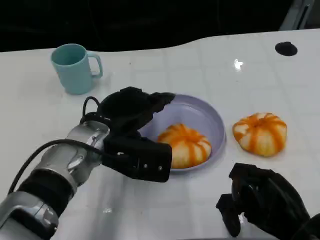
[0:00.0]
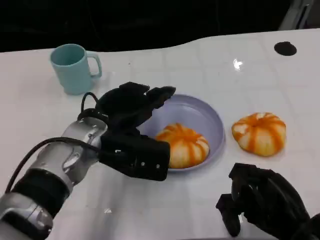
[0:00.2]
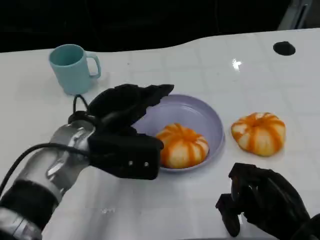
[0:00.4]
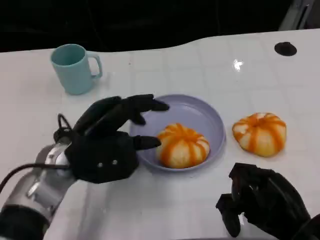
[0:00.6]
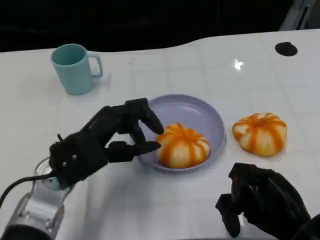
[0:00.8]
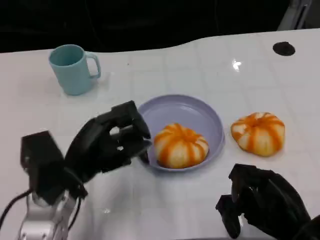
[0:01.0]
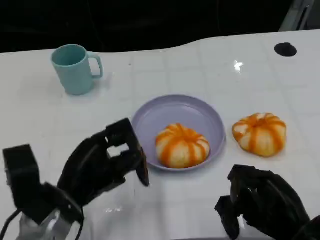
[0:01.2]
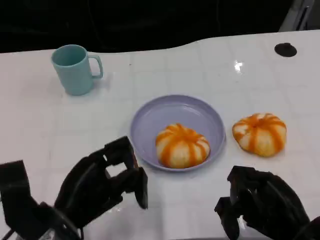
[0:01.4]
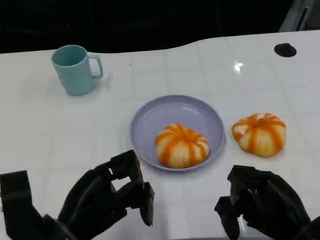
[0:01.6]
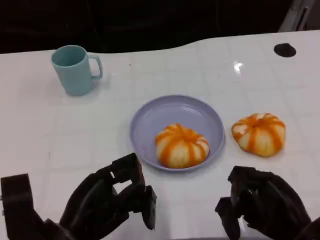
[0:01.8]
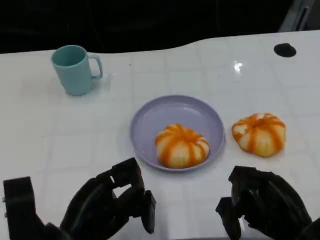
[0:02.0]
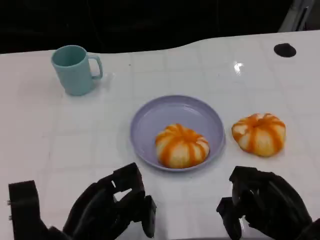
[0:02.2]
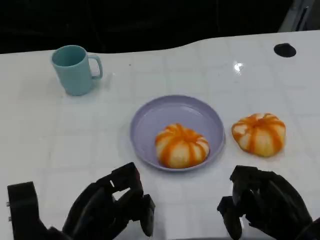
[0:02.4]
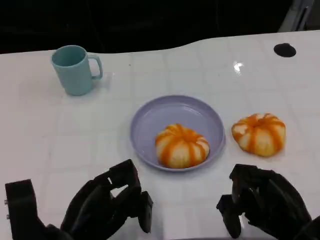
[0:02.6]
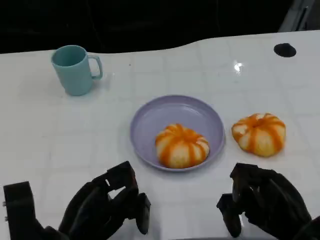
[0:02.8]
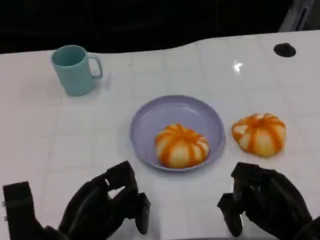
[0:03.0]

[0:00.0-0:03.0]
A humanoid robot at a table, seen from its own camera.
Task of the whole recording: Grasp the bread from the table and place it into the plate.
0:00.0 to 0:01.6: The left hand shifts roughly 15 cm backward and to the left.
0:01.6 to 0:03.0: The hands move only a little.

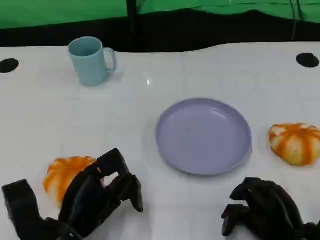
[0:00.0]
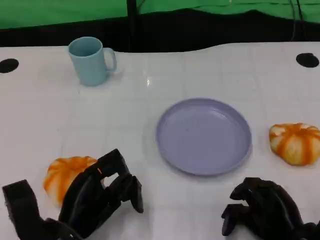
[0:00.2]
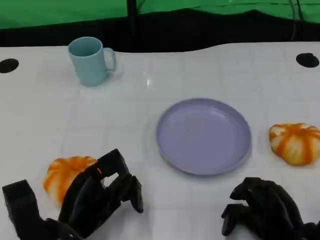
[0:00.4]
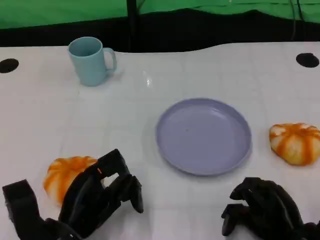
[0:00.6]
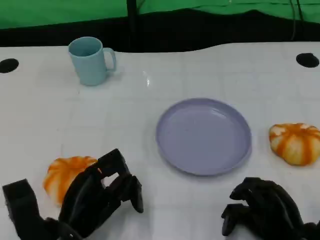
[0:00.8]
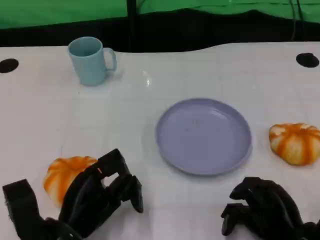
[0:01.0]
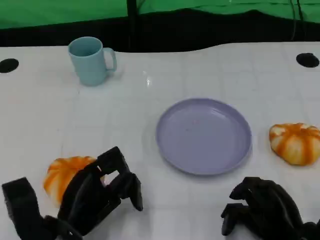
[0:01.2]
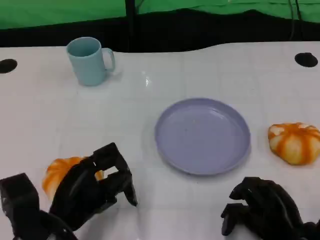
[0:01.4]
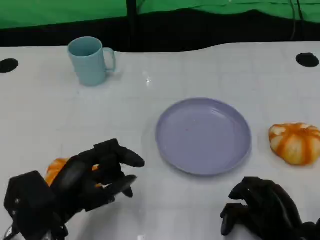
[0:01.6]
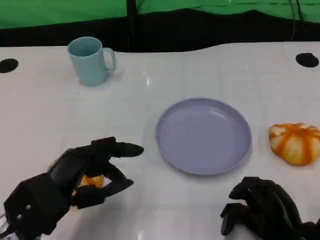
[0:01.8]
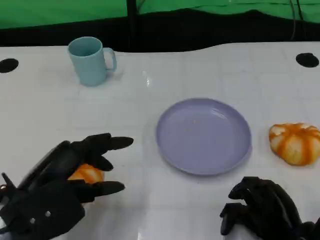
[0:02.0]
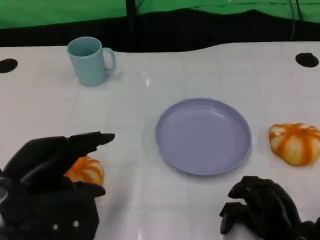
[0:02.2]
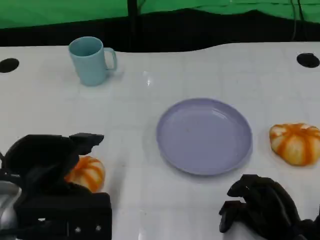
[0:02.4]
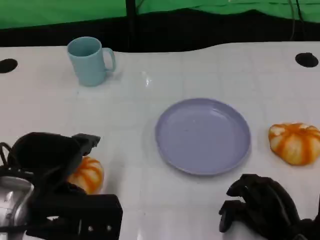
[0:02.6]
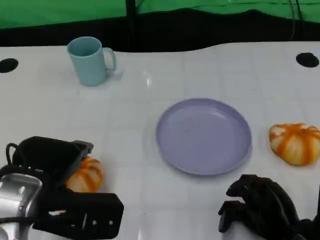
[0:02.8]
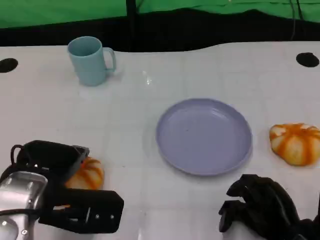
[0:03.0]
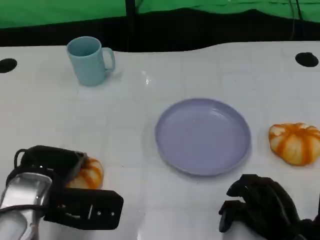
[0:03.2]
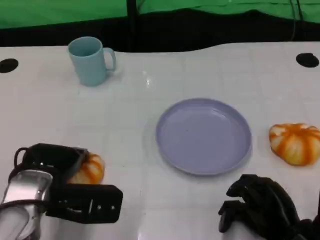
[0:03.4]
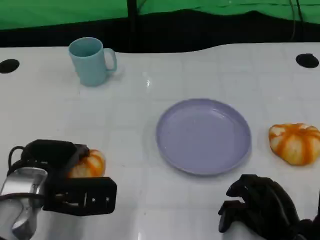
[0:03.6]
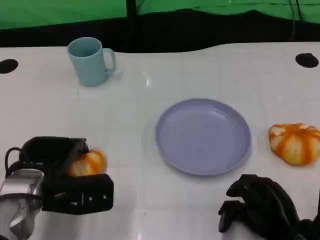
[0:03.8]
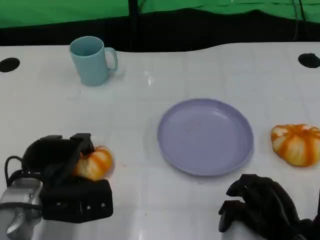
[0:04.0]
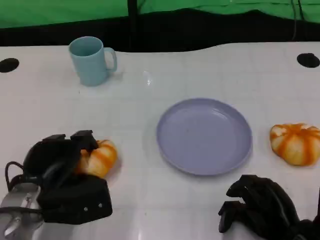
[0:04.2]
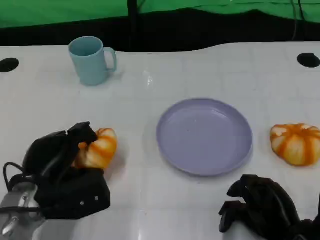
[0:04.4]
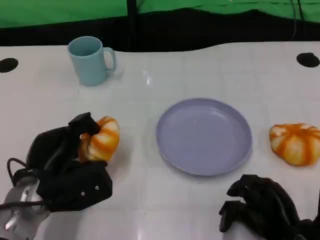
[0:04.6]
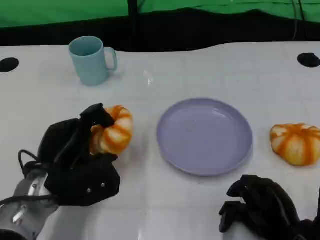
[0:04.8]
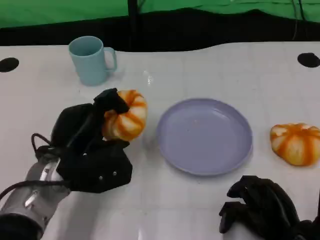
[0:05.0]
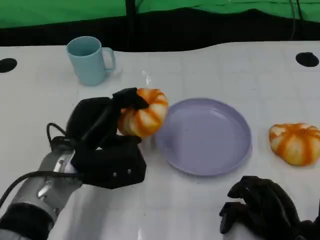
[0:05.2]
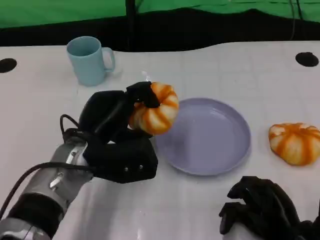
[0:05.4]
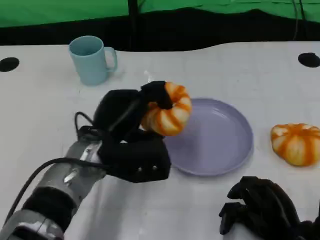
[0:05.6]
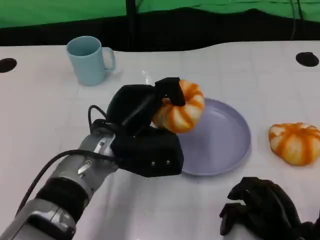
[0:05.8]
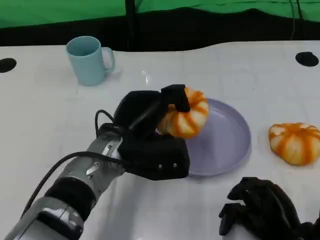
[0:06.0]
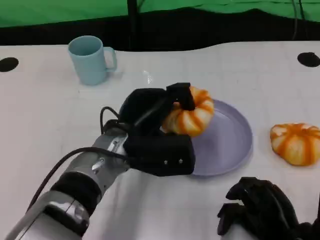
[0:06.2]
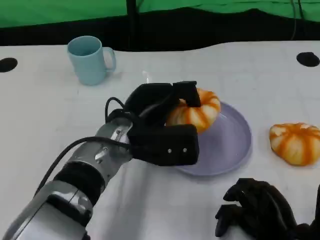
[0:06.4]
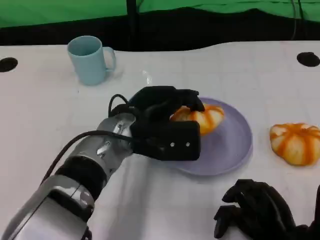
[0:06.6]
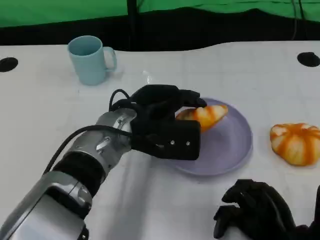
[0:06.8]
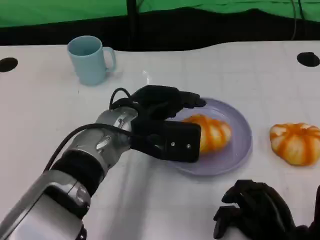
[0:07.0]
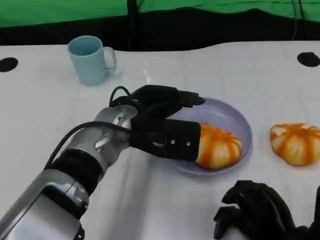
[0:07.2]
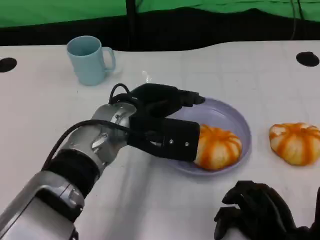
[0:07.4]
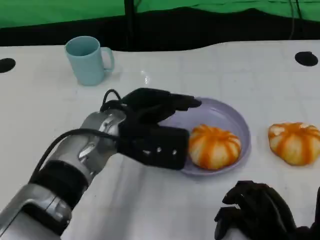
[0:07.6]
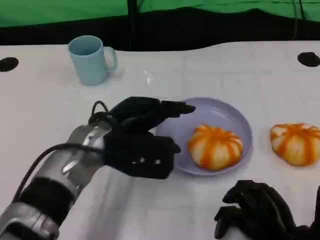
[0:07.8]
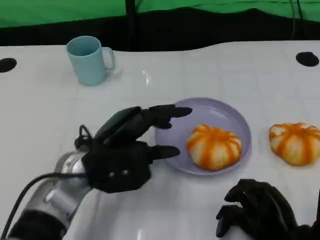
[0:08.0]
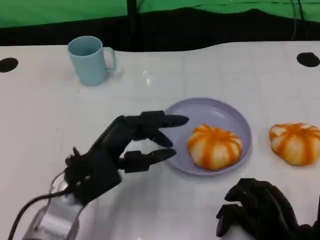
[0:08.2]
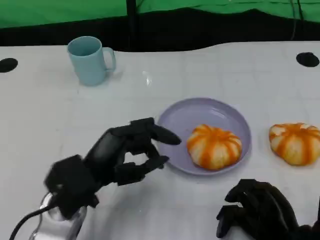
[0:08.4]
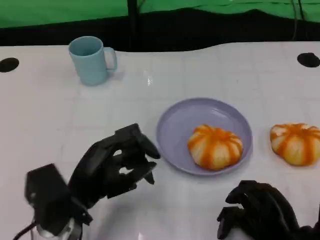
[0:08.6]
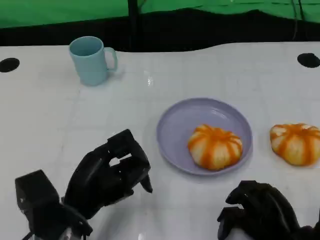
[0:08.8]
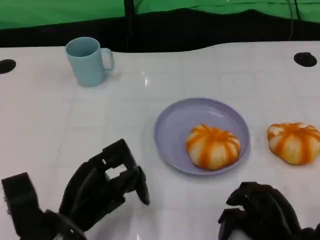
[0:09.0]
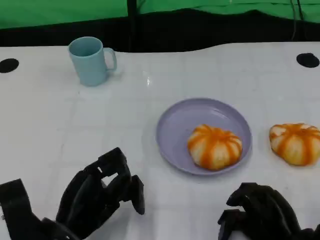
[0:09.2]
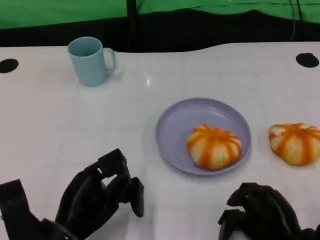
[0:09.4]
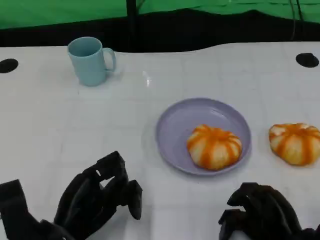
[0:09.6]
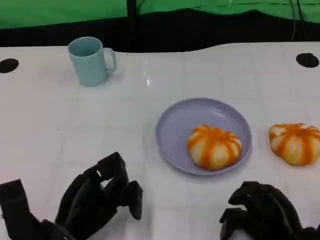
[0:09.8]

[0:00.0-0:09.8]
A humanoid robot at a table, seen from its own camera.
Task of the whole recording: Grasp the bread from the table and place it into the plate.
0:00.0 to 0:01.4: The hands make only small movements.
0:01.4 to 0:02.8: The left hand shifts some 10 cm upward.
0:02.8 to 0:04.2: The left hand is displaced downward by approximately 10 cm.
0:04.2 to 0:05.6: The left hand goes about 10 cm to the right and upward.
0:05.6 to 0:07.0: The left hand shifts by approximately 5 cm.
0:07.0 to 0:08.4: The left hand heads backward, to the left and downward, covering some 15 cm.
0:08.4 to 0:09.8: The left hand changes place by some 5 cm.

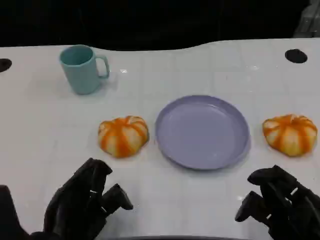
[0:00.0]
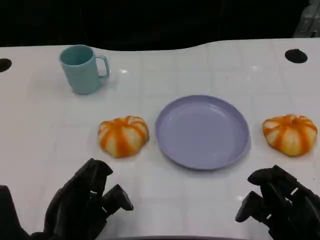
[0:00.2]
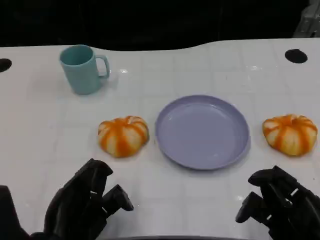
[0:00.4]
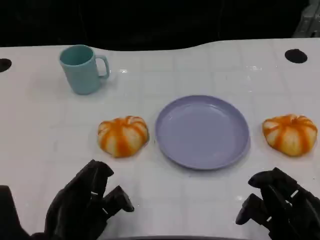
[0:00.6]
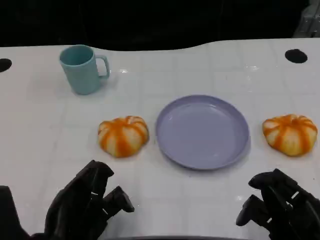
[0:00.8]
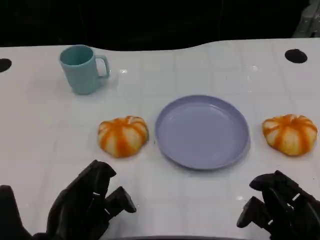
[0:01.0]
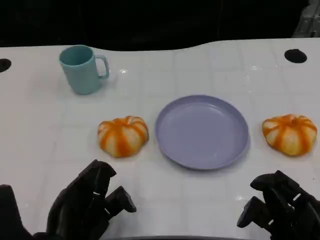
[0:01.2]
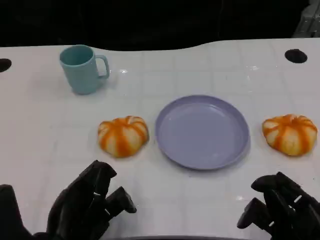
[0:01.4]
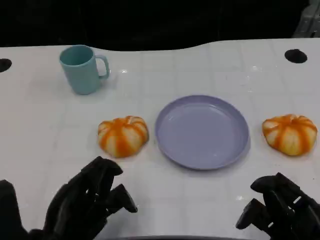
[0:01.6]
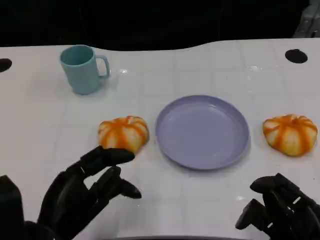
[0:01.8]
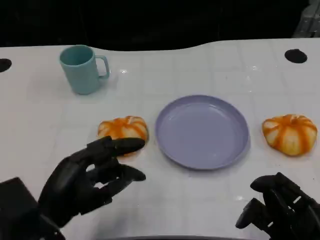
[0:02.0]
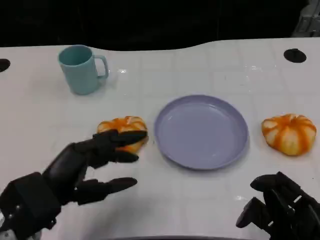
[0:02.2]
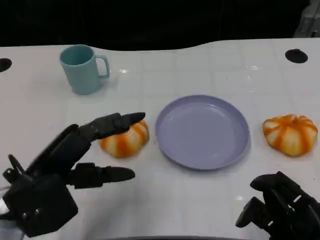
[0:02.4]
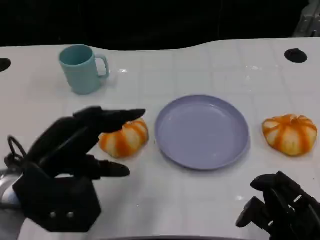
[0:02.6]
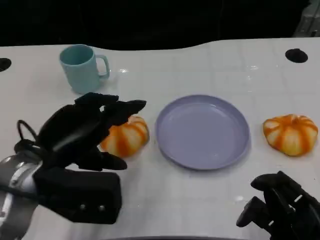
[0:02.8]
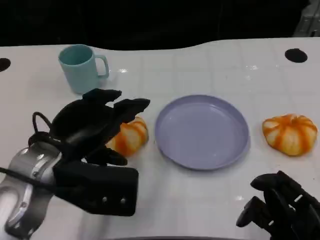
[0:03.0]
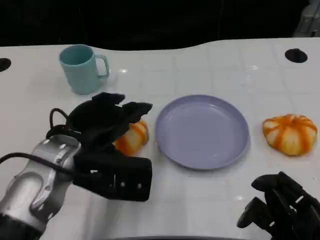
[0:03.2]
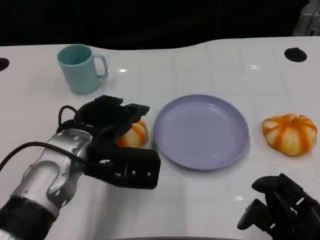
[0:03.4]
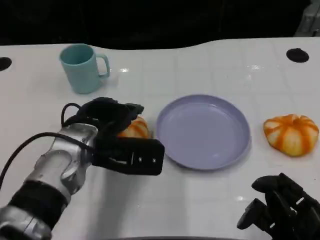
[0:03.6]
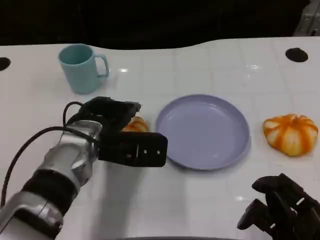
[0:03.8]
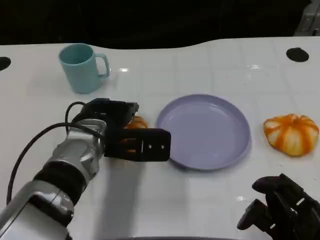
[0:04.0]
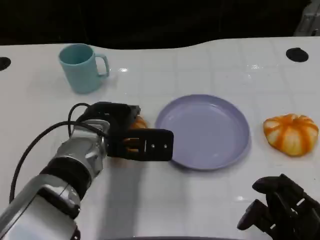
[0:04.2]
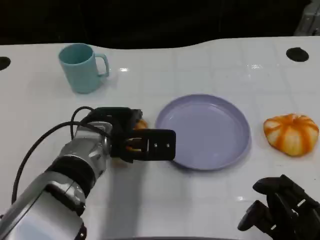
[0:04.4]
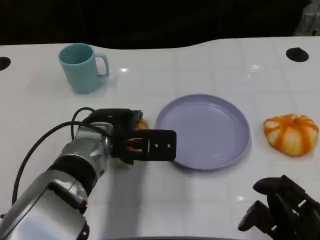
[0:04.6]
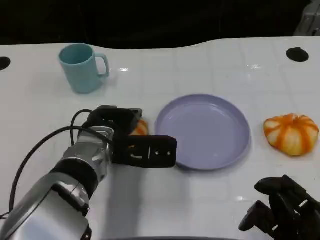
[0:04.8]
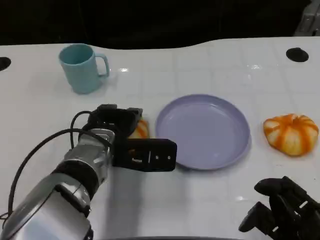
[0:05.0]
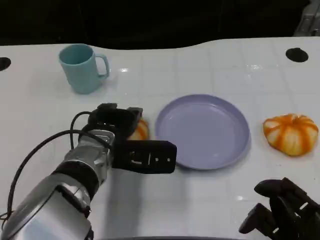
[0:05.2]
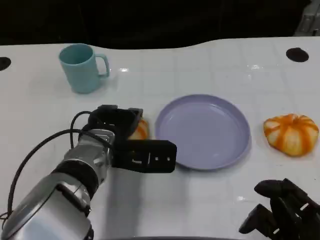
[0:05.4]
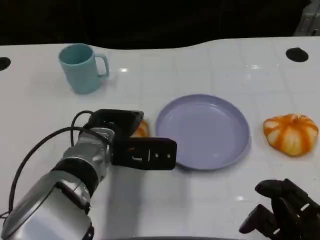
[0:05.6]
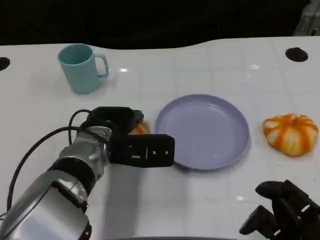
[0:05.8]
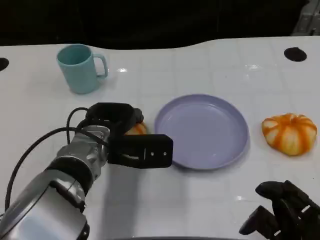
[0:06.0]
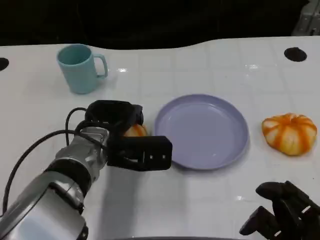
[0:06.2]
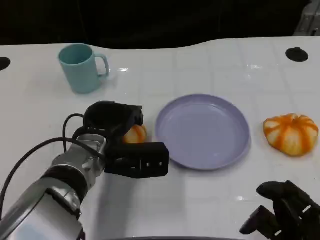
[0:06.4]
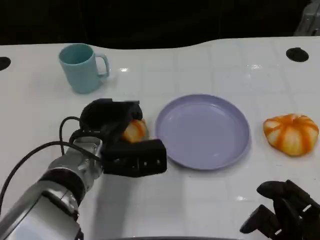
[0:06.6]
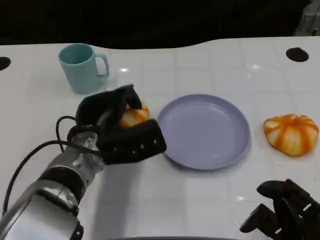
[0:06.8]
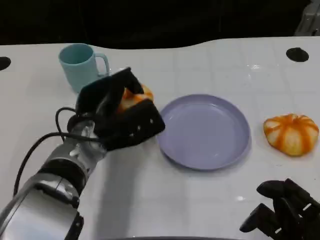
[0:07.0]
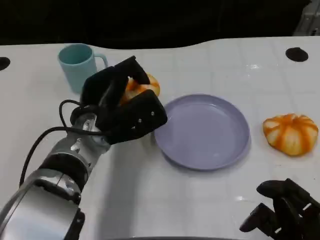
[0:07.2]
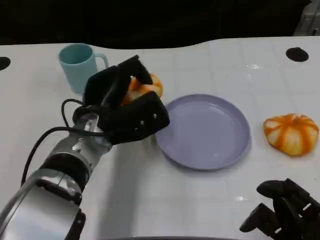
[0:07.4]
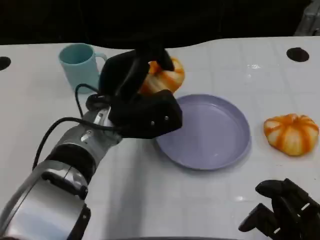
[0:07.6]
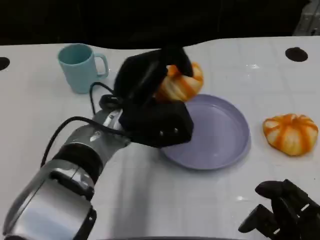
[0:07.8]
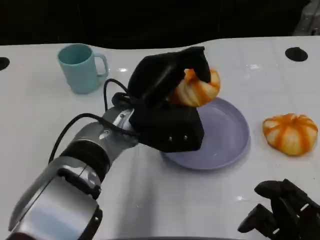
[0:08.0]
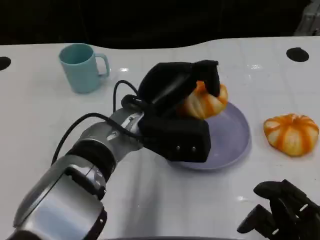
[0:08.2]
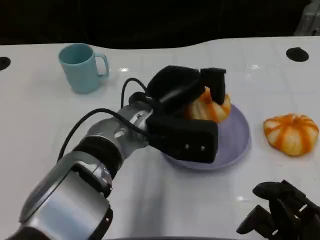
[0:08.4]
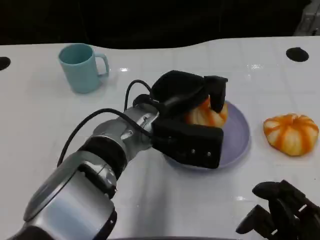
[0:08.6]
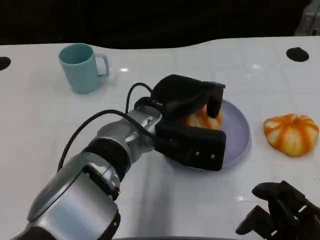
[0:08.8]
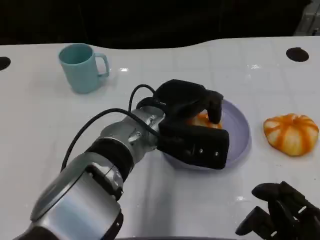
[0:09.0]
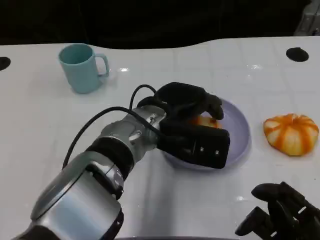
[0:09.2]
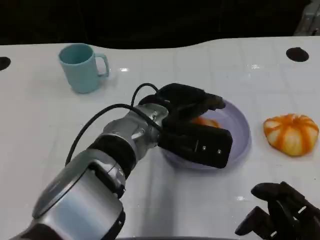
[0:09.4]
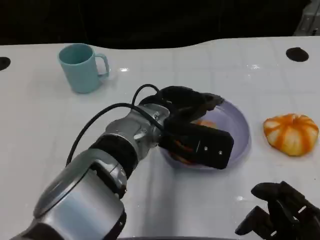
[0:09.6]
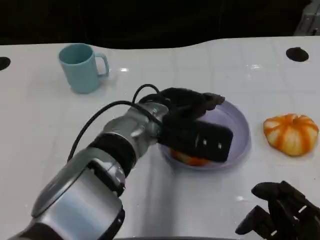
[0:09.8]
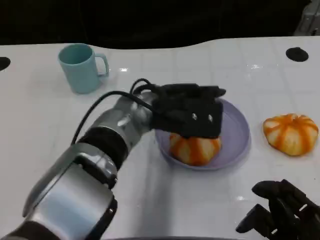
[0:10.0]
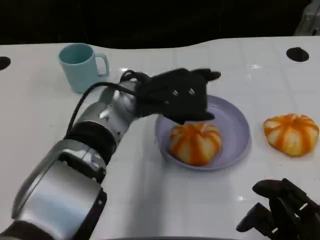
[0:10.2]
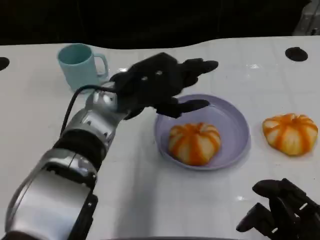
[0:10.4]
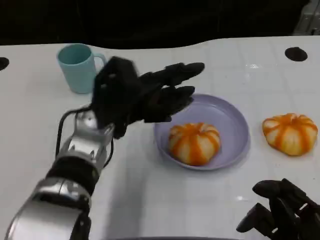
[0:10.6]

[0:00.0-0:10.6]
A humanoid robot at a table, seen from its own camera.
Task of the whole recording: Grasp the bread from the table and place it into the plate.
0:00.0 to 0:01.6: The hands stay close to where they were, moving slightly.
0:01.6 to 0:03.0: The left hand heads forward and upward, covering roughly 10 cm.
0:03.0 to 0:04.6: The left hand goes some 10 cm forward, to the right and downward.
0:04.6 to 0:06.0: There are only small adjustments of the hands.
0:07.6 to 0:09.0: The left hand goes approximately 5 cm to the right.
0:09.0 to 0:10.6: The left hand heads to the left, covering some 10 cm.
